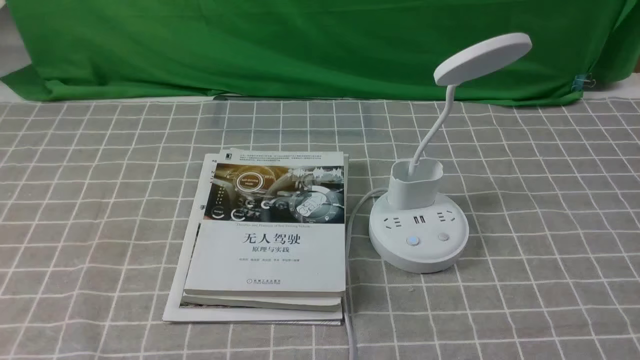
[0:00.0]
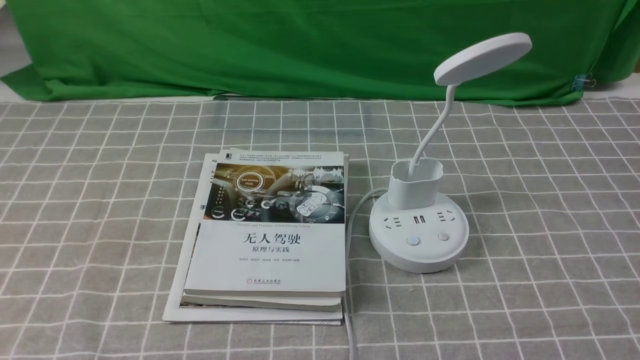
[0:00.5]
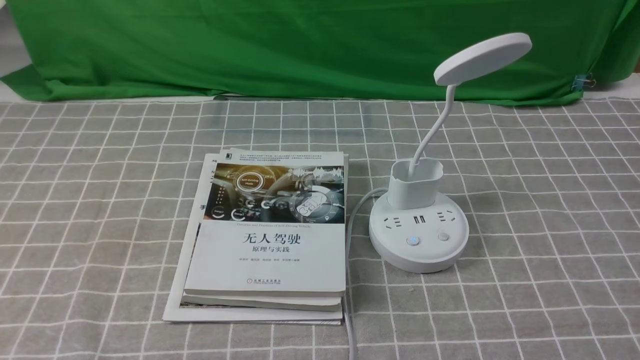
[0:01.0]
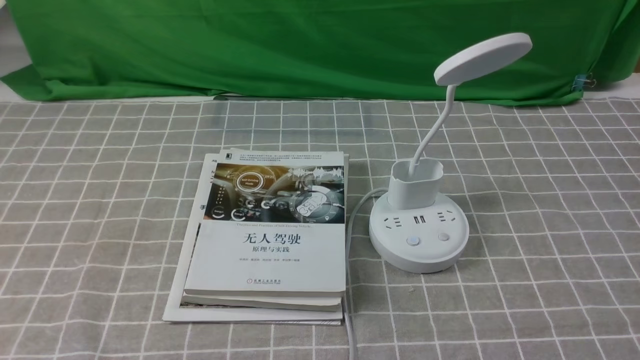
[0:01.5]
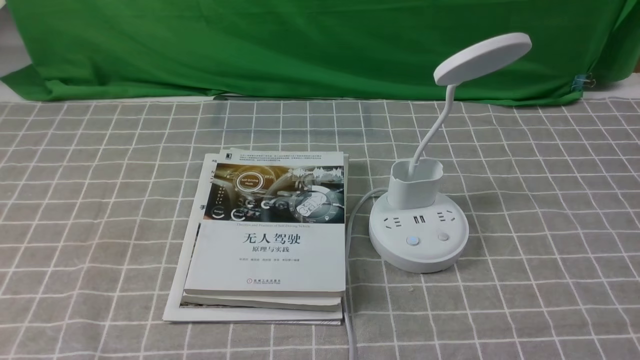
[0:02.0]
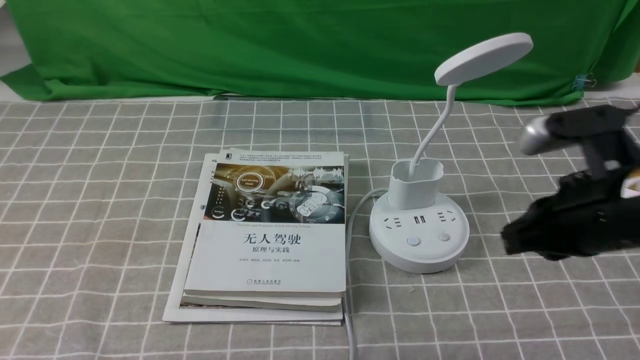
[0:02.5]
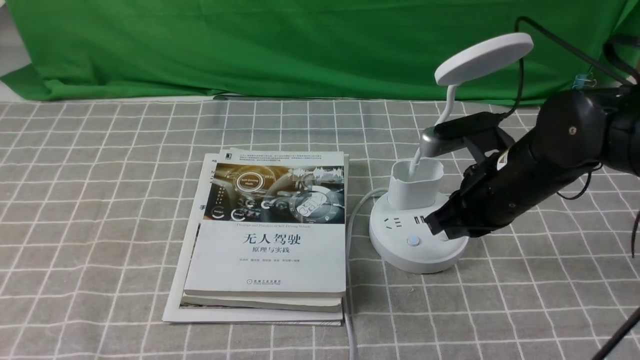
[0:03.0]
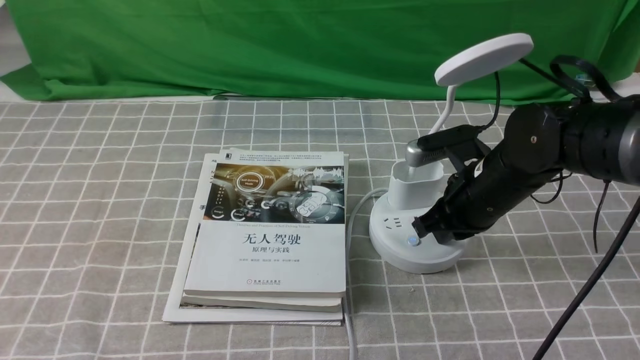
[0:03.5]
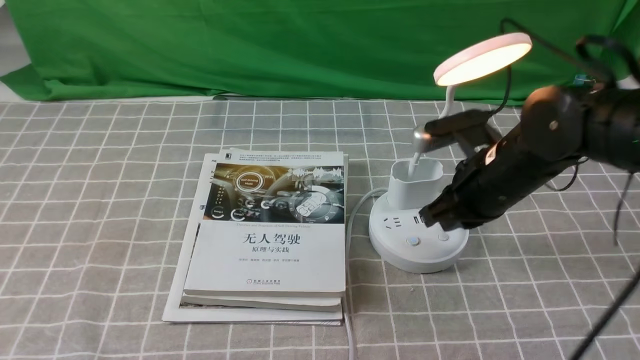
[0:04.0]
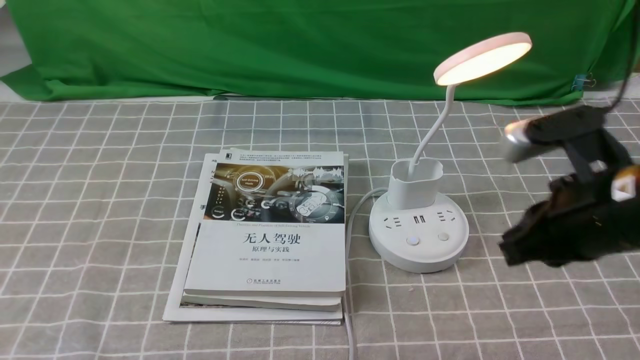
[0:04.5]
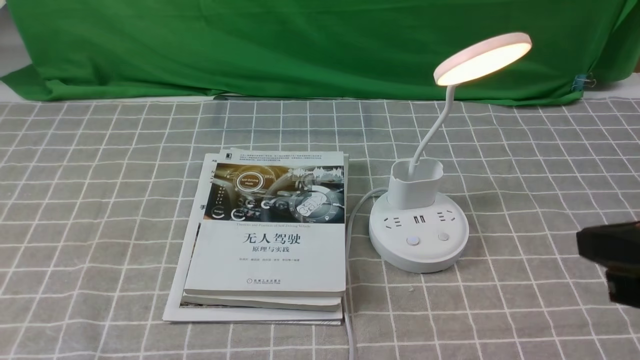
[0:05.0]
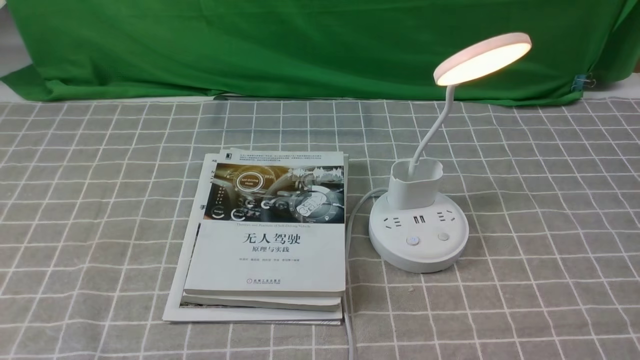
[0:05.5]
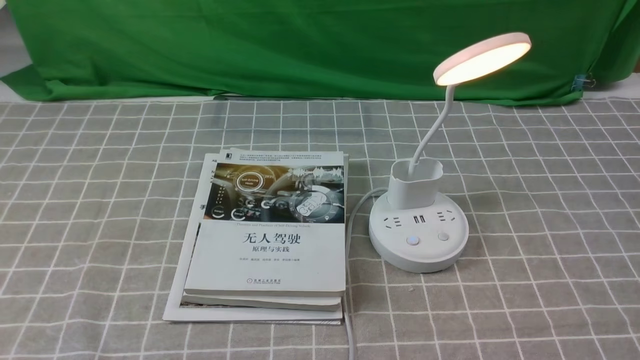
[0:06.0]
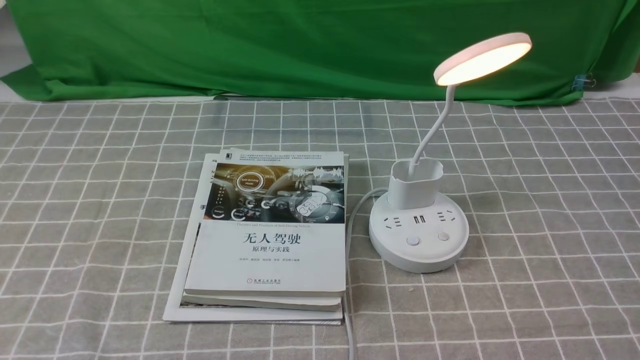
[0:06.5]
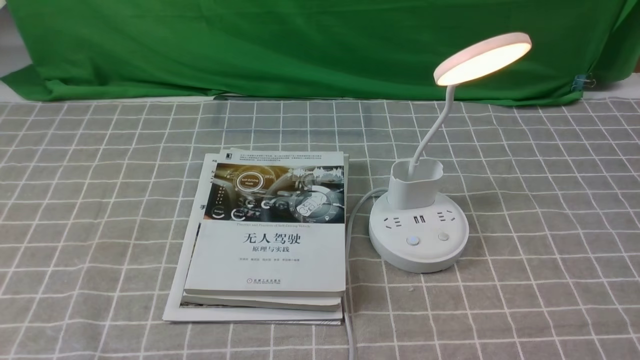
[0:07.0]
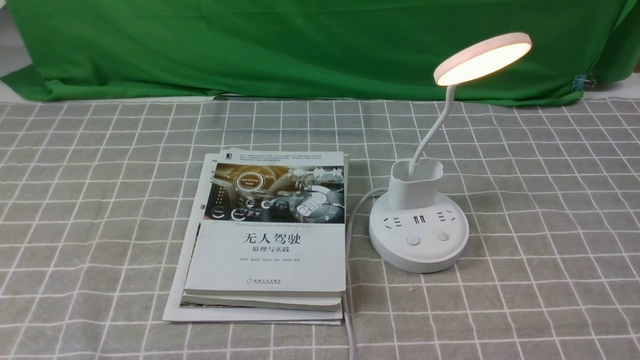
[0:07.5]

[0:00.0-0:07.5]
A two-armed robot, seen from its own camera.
Step, 0:00.0 to 0:04.0: use the right arm to press the button switch on the lamp holder.
0:02.0 to 0:04.0: The right gripper moves forward and to the left, some 25 cm.
0:04.0 to 0:05.5: The right gripper is displaced backward and to the right by approximately 30 cm.
